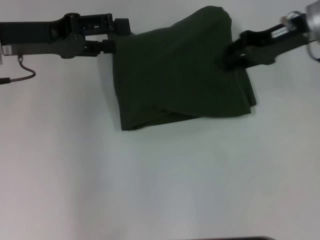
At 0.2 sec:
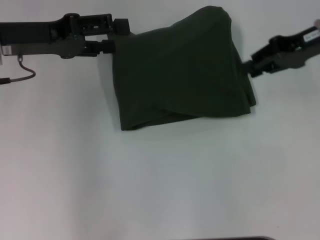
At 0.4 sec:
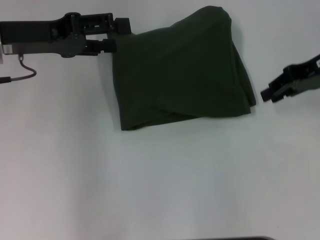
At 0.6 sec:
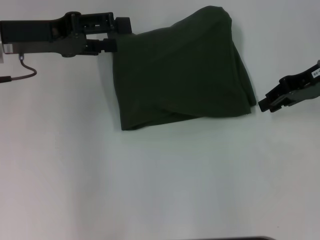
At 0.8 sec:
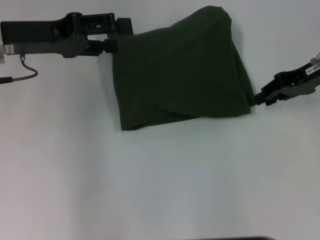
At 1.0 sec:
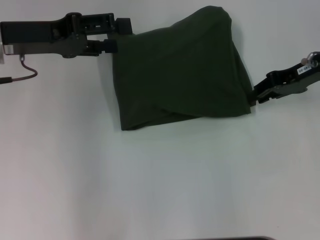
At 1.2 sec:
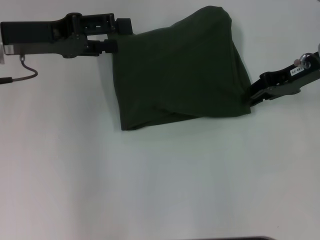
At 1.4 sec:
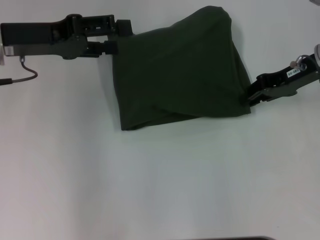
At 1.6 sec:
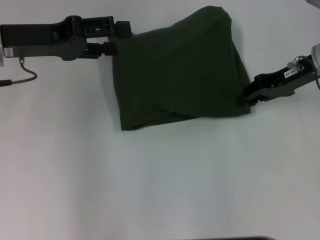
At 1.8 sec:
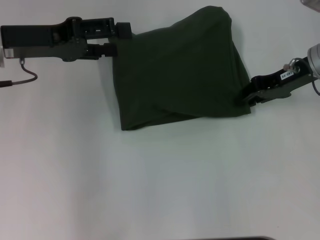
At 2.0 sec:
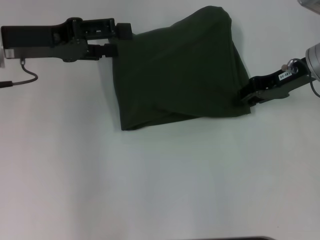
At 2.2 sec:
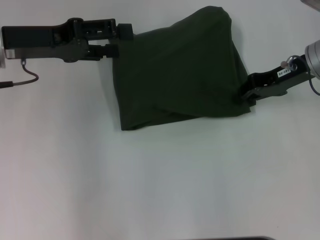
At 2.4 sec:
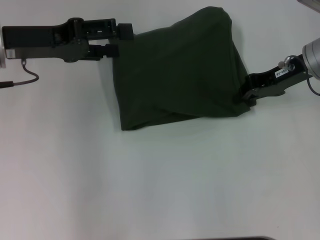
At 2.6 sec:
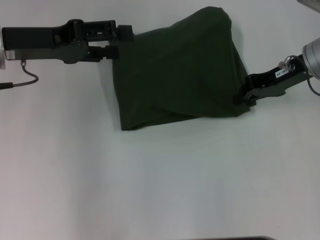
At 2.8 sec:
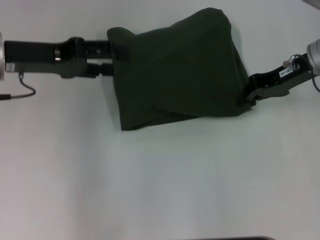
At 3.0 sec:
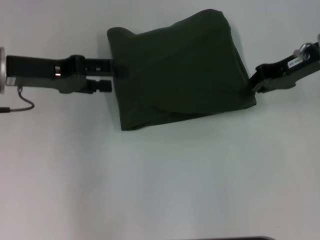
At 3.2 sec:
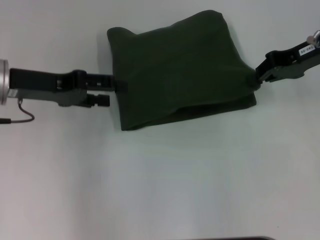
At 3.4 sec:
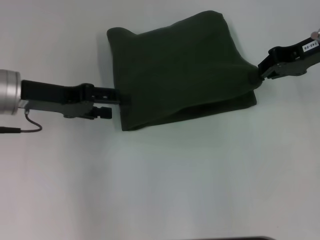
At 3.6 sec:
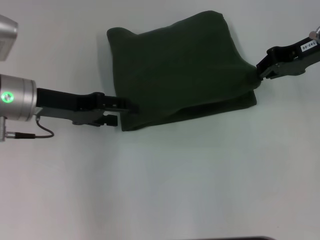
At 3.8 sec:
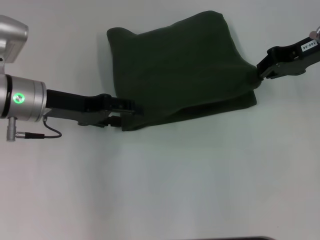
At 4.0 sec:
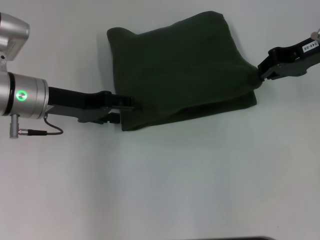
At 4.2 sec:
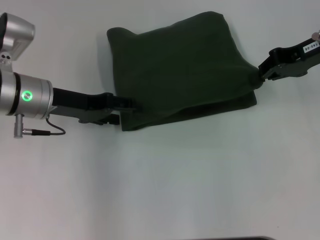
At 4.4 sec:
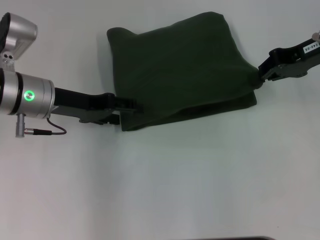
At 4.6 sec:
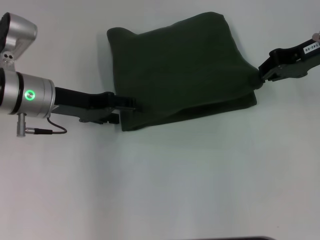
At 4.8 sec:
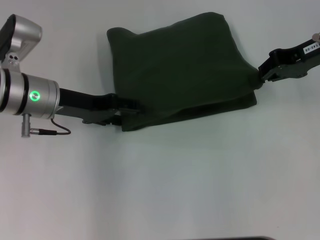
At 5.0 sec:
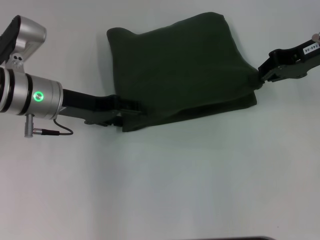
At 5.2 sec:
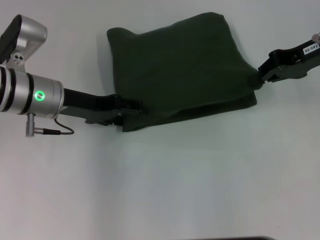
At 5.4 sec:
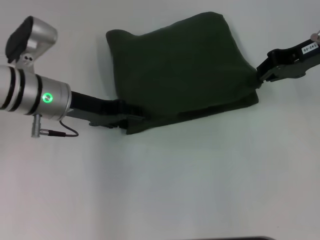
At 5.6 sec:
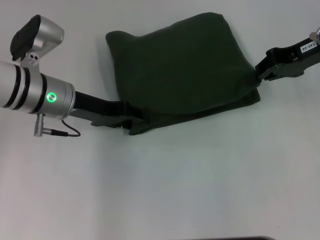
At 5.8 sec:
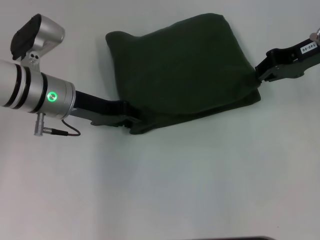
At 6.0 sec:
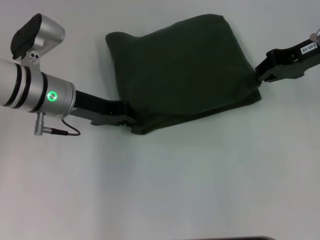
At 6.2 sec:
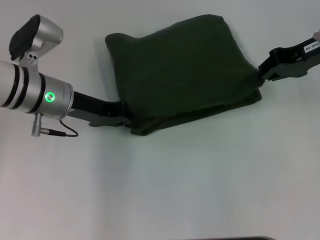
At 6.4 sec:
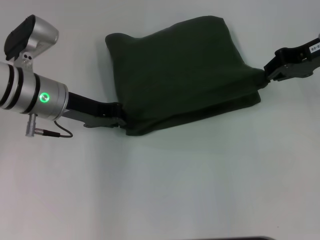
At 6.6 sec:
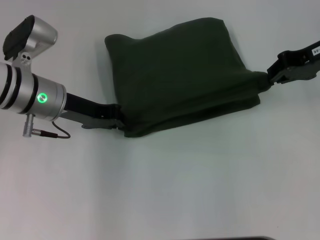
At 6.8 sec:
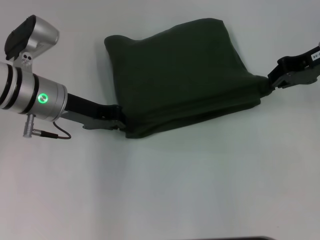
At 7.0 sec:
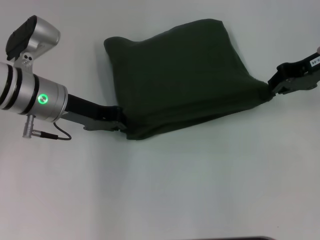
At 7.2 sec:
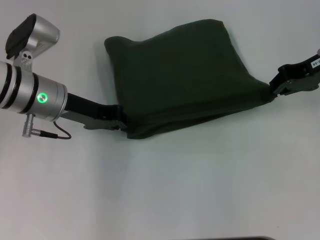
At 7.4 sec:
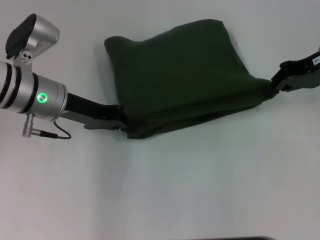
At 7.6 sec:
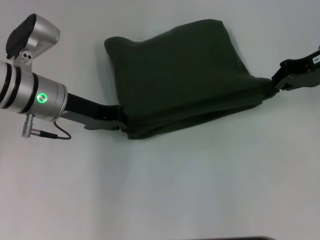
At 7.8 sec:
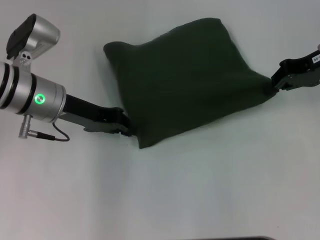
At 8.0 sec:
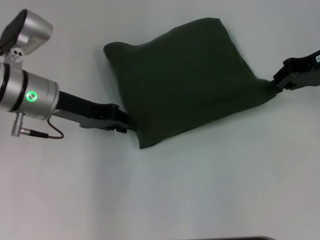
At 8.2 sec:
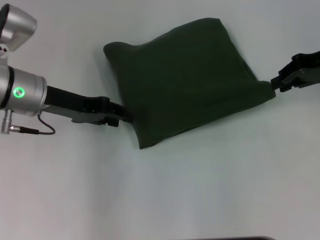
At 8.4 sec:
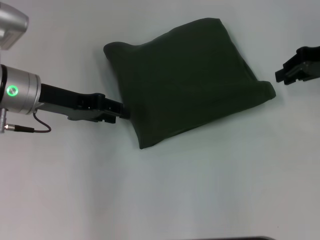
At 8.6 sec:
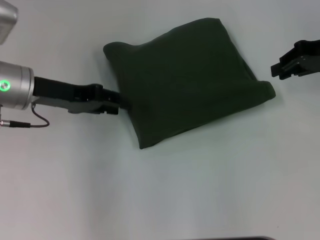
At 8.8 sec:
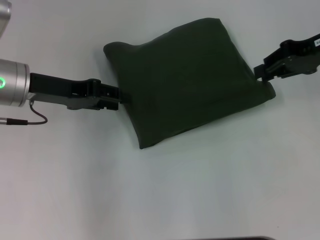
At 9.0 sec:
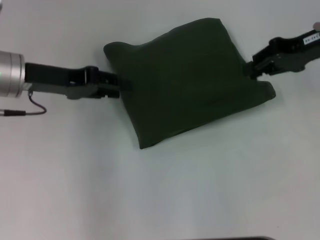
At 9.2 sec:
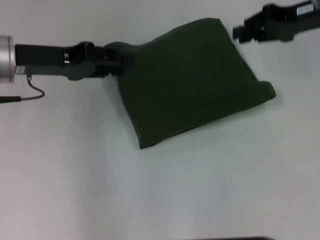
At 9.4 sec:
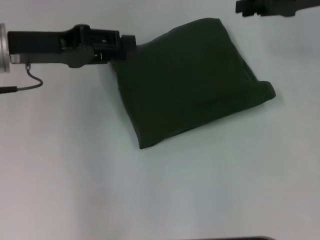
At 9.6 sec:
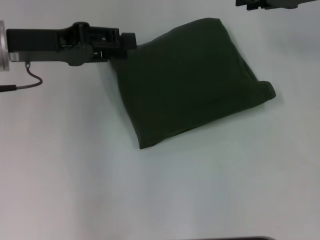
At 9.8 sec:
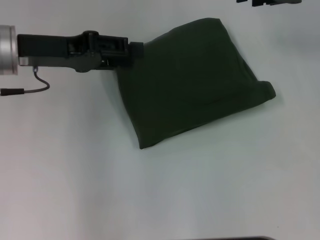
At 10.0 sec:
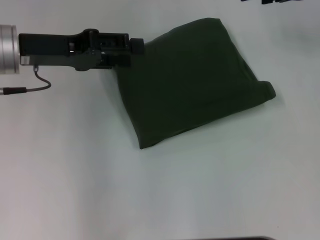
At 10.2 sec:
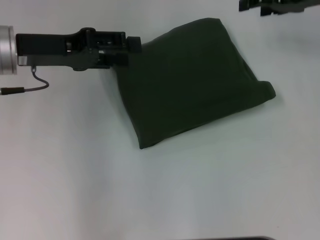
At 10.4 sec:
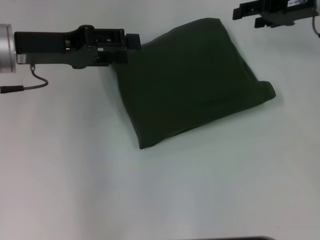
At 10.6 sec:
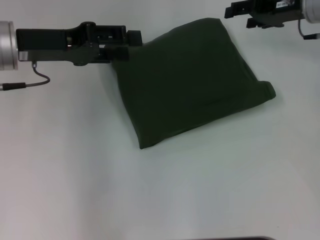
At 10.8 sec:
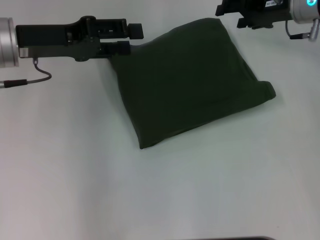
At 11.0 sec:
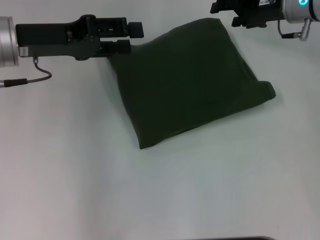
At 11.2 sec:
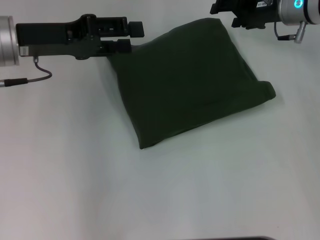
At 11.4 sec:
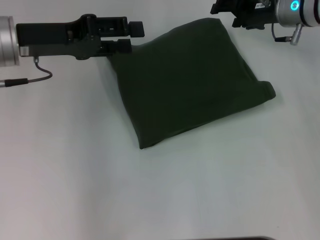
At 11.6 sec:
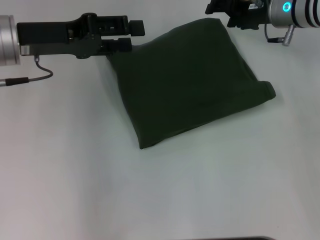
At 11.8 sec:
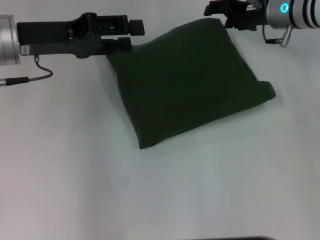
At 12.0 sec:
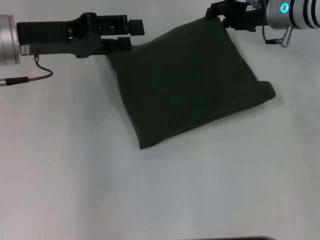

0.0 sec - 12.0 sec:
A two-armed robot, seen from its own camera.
0.0 sec - 3.0 sec: There are only small adjustments of the grippers.
3.0 sec - 4.4 sec: The left gripper heads downward, covering approximately 5 cm.
4.4 sec - 6.0 sec: The left gripper closes its fingers.
6.0 sec - 7.6 sec: The left gripper closes.
7.6 sec - 9.0 sec: The left gripper moves about 5 cm, and opens.
9.0 sec - 10.4 sec: The right gripper travels forward by some 5 cm, and opens.
10.4 sec - 12.0 sec: The right gripper is displaced to the left by roughly 5 cm.

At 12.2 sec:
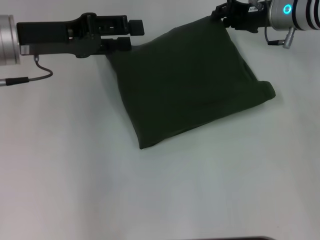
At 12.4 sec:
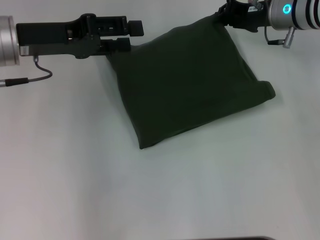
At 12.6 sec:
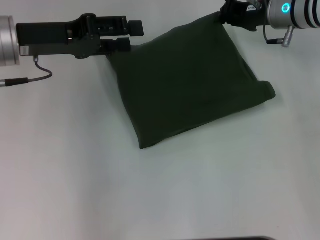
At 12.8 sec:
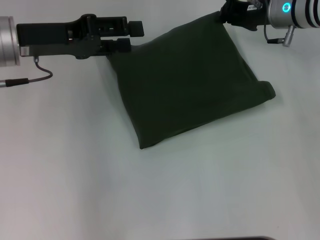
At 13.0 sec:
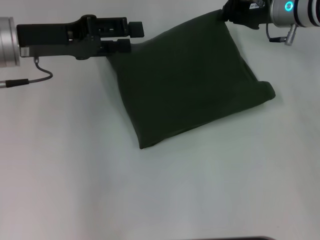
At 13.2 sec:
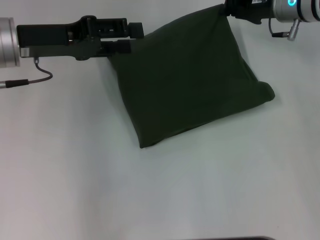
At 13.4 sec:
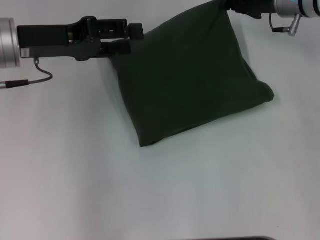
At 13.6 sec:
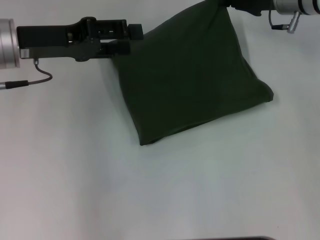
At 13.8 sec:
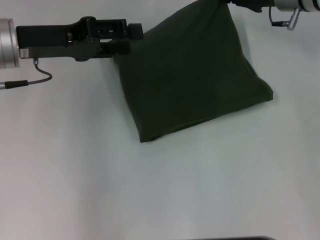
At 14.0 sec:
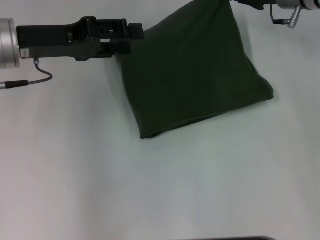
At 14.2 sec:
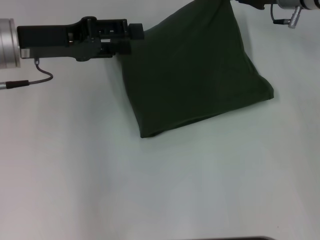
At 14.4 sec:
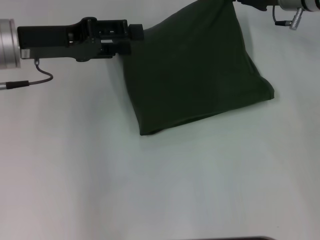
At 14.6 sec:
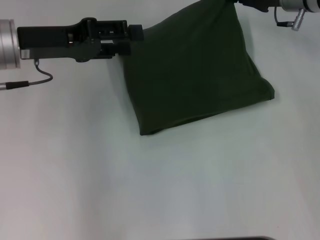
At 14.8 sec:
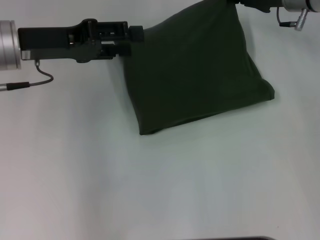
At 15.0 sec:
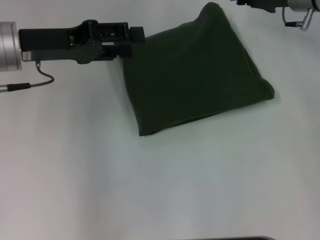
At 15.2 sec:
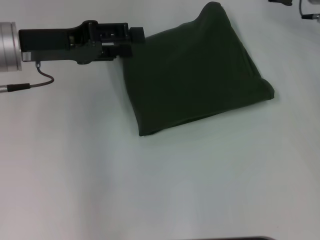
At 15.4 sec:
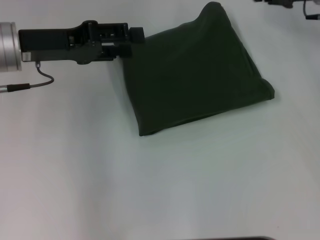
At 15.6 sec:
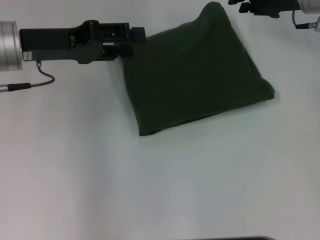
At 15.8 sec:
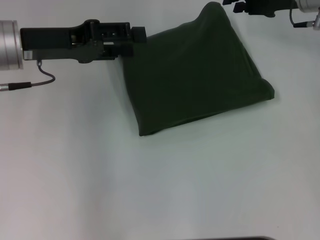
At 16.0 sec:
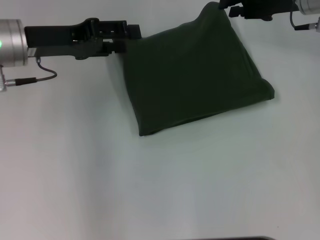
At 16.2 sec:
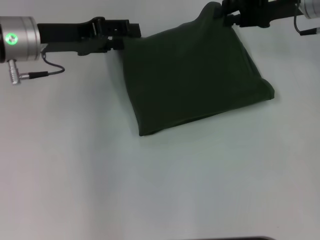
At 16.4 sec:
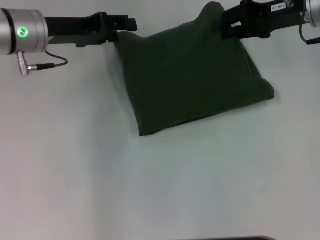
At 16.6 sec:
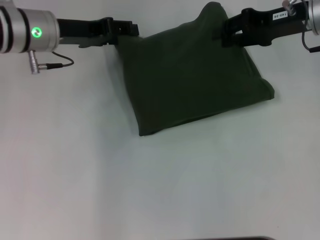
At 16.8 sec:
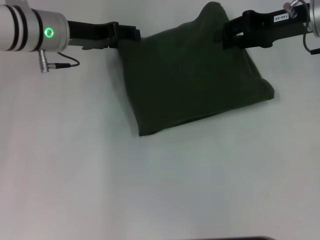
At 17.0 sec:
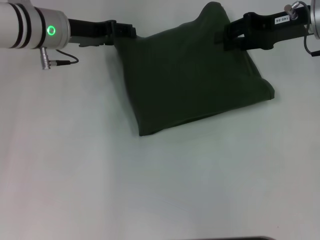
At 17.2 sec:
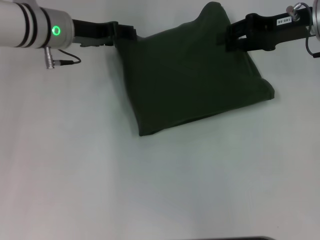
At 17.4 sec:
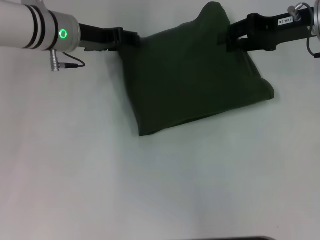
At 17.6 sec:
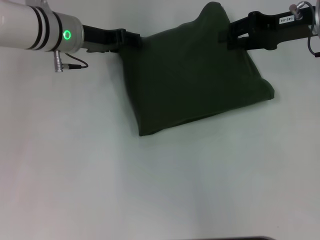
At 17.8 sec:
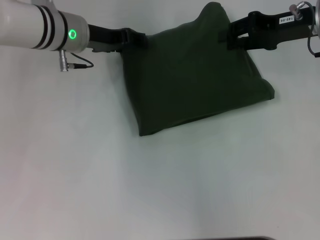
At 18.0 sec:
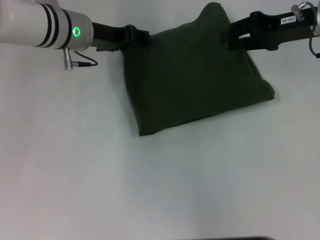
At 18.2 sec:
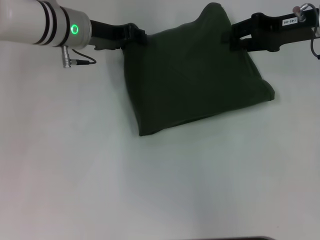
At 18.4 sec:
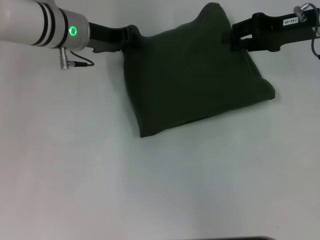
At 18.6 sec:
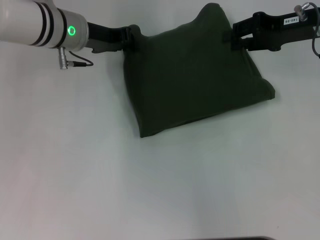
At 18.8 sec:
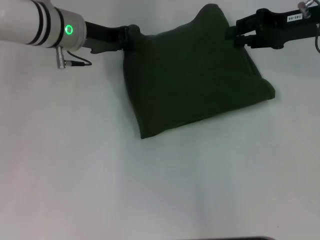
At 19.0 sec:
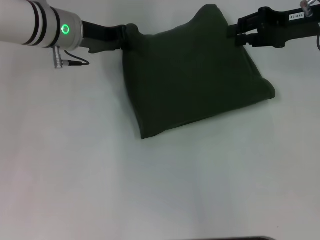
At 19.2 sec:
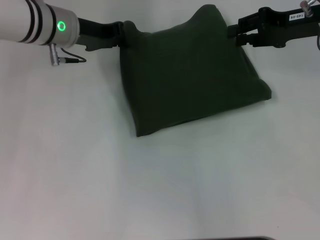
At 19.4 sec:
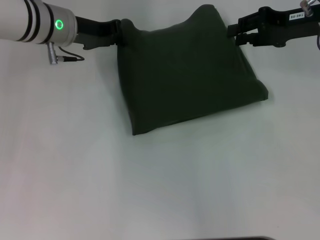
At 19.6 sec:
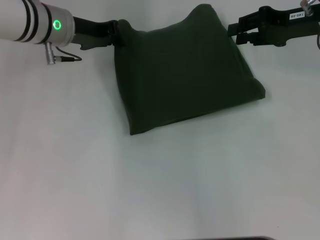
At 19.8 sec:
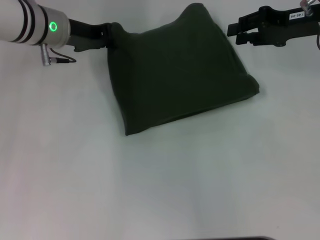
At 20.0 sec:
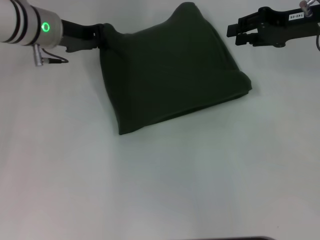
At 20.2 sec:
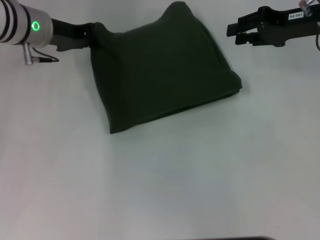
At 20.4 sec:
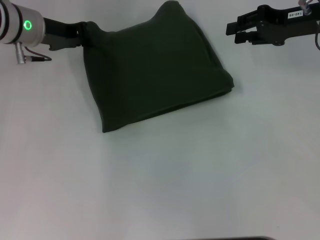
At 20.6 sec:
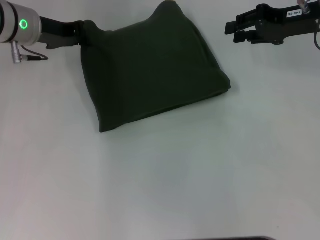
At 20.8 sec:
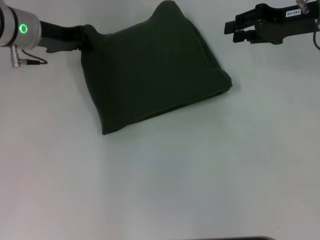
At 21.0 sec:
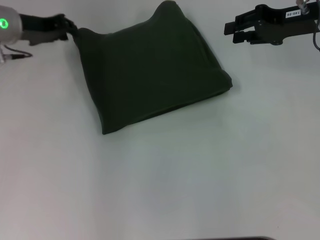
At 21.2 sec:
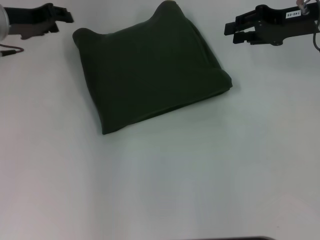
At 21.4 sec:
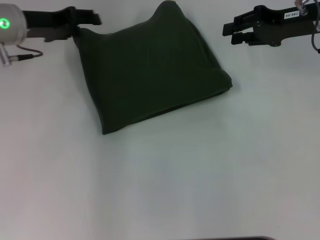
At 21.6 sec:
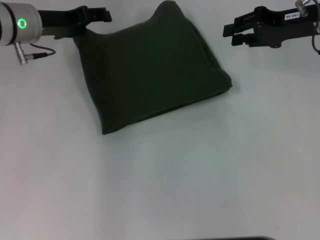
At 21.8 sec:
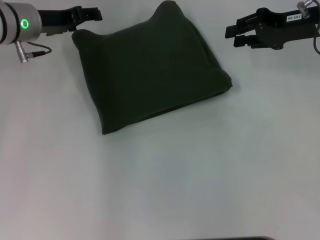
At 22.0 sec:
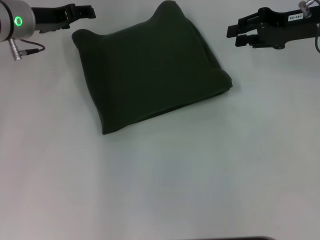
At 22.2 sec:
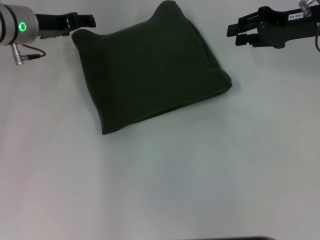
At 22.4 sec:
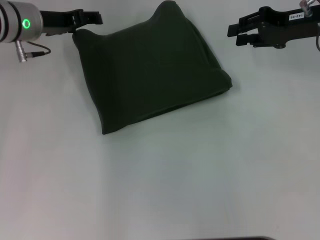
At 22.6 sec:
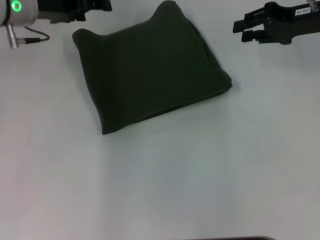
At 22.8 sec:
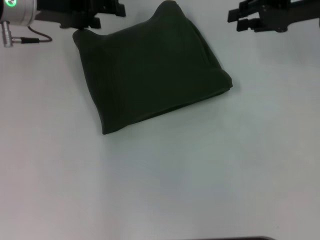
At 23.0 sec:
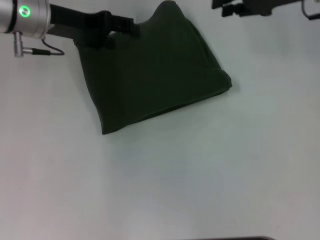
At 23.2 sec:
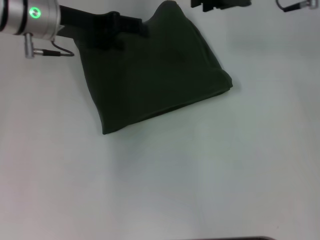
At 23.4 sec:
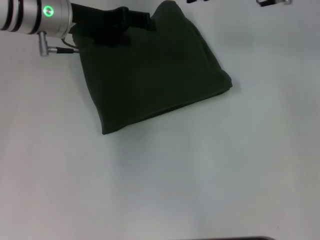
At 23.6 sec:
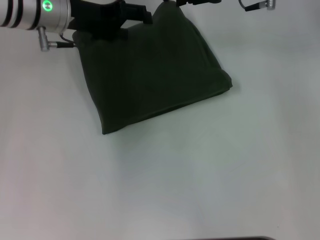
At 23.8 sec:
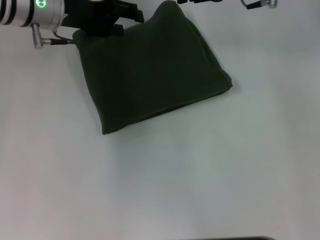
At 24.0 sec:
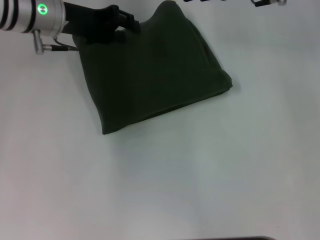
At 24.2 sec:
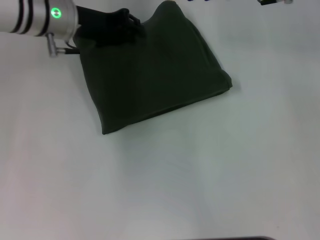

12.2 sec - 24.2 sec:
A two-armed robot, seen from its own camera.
12.2 sec - 13.8 sec: The right gripper closes.
13.8 sec - 15.2 sec: There are only small adjustments of the grippers.
15.2 sec - 16.6 sec: The right gripper goes approximately 5 cm backward. Meanwhile the left gripper moves forward, some 5 cm.
16.6 sec - 18.2 sec: The grippers stay close to where they were, moving slightly.
18.2 sec - 19.8 sec: The left gripper closes up.
19.8 sec - 21.2 sec: The left gripper shifts roughly 10 cm to the left, and opens up.
21.2 sec - 22.6 sec: The left gripper opens up.
22.6 sec - 24.2 sec: The right gripper is displaced to the left and forward by about 10 cm. Meanwhile the left gripper ends up about 5 cm from where it was, and closes up.
